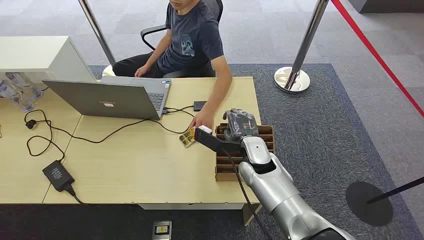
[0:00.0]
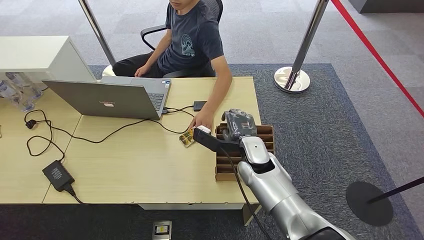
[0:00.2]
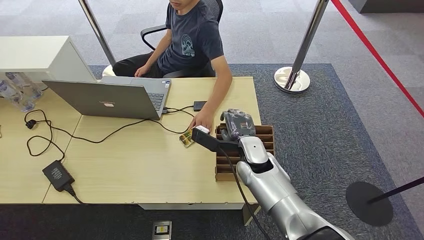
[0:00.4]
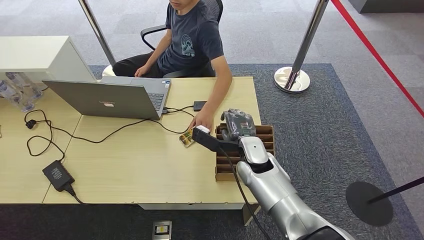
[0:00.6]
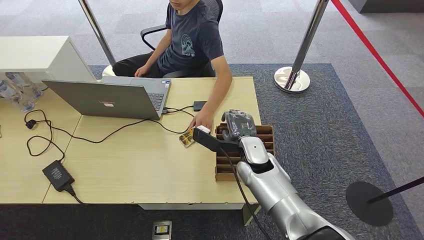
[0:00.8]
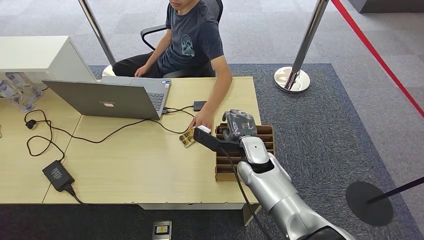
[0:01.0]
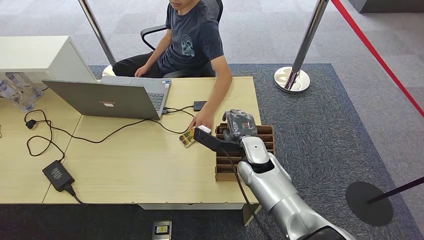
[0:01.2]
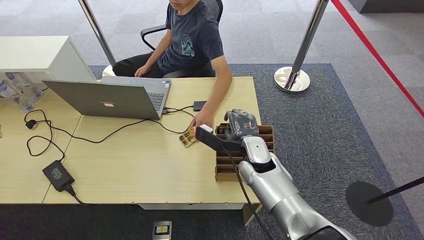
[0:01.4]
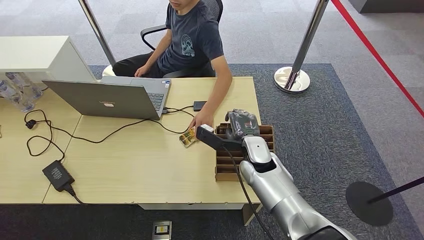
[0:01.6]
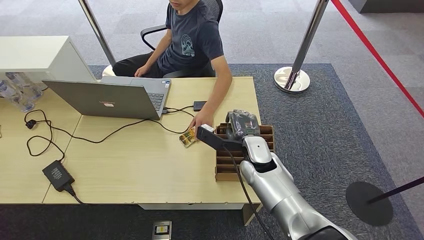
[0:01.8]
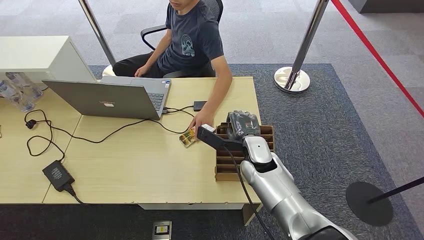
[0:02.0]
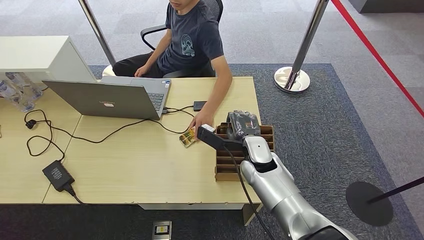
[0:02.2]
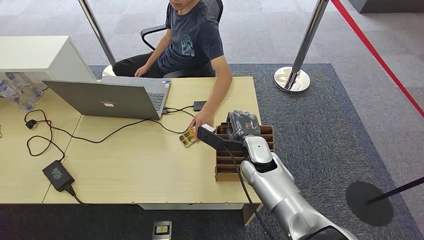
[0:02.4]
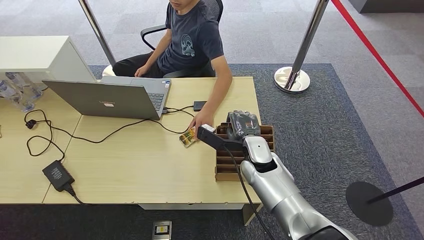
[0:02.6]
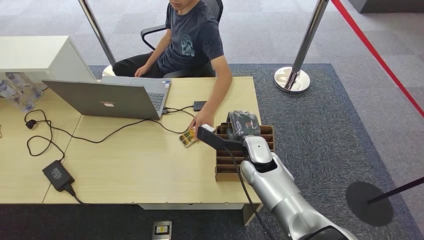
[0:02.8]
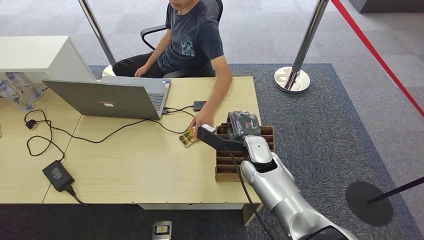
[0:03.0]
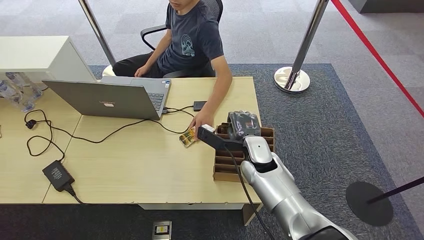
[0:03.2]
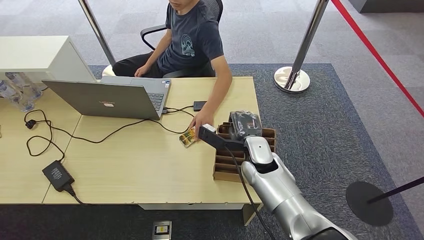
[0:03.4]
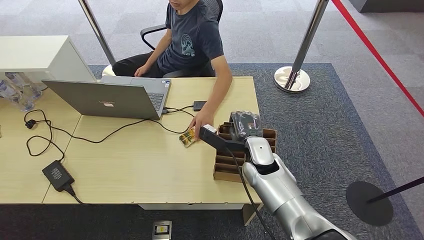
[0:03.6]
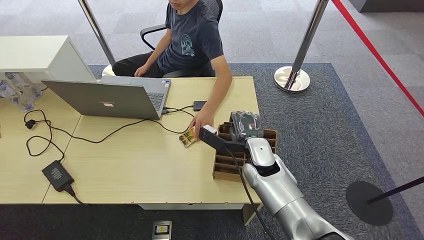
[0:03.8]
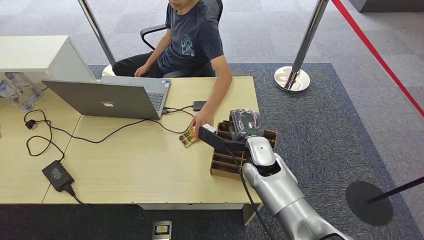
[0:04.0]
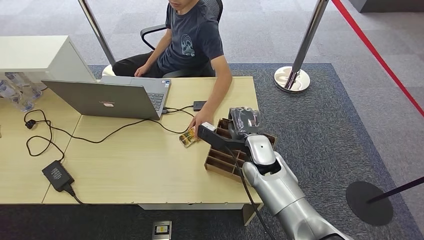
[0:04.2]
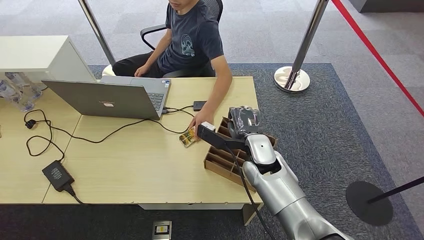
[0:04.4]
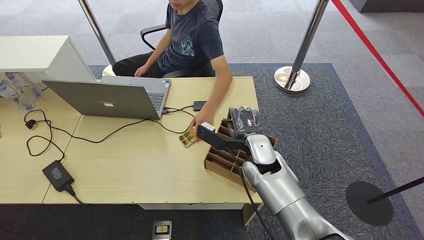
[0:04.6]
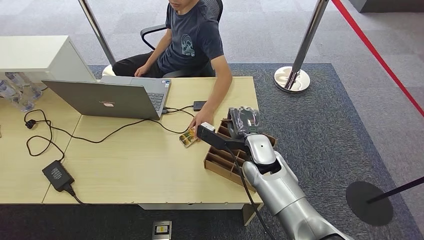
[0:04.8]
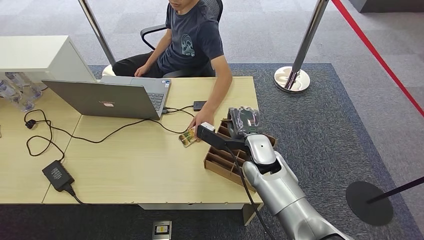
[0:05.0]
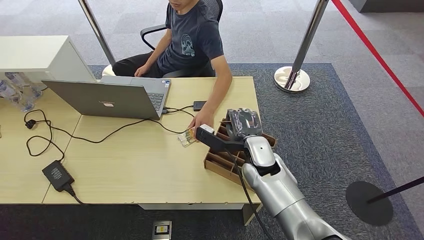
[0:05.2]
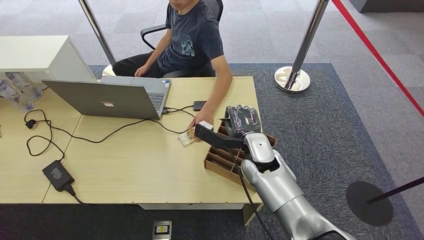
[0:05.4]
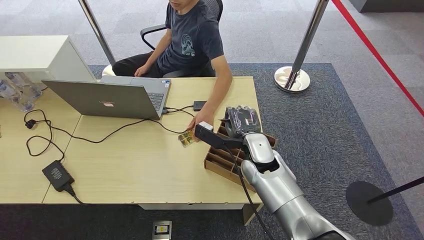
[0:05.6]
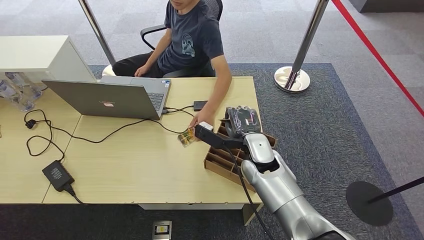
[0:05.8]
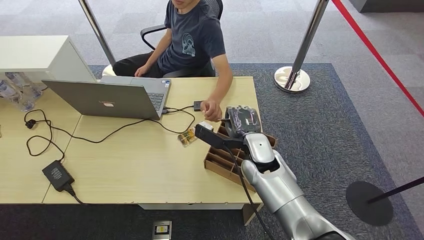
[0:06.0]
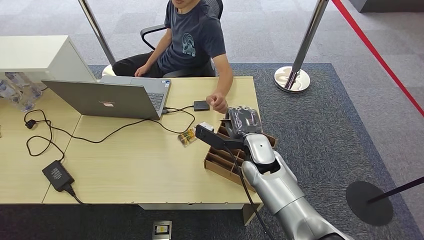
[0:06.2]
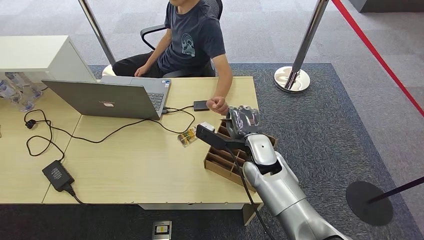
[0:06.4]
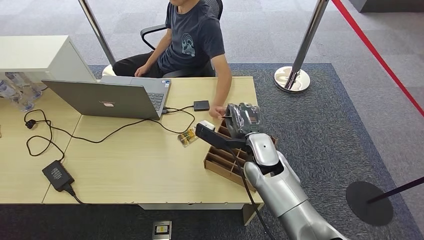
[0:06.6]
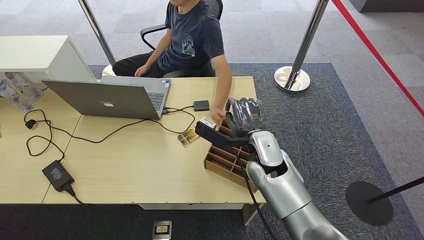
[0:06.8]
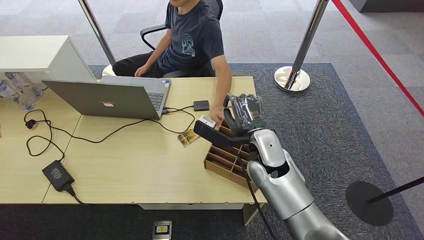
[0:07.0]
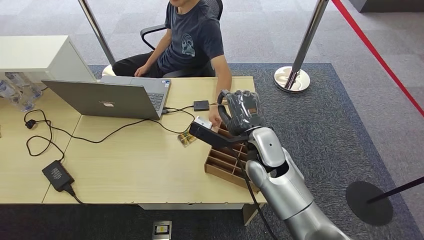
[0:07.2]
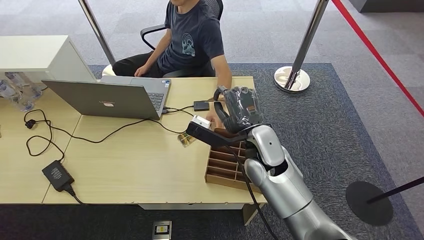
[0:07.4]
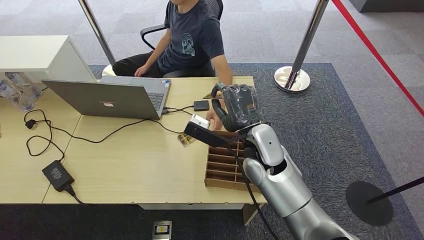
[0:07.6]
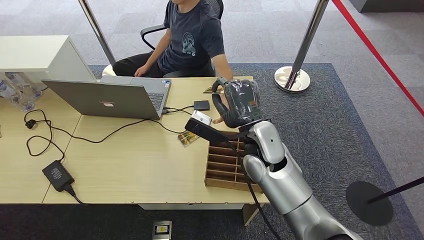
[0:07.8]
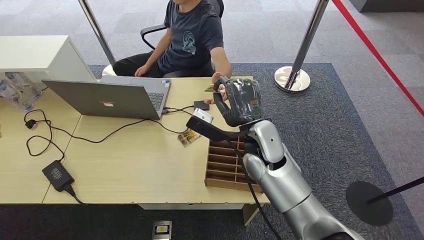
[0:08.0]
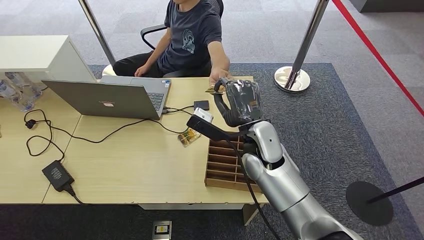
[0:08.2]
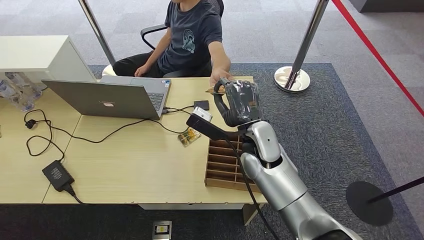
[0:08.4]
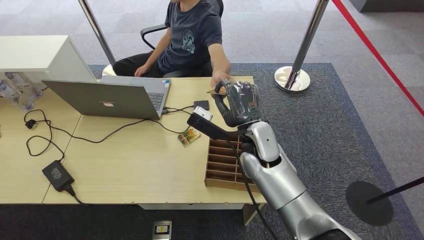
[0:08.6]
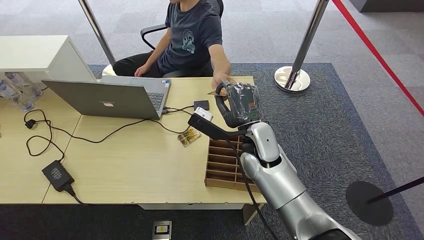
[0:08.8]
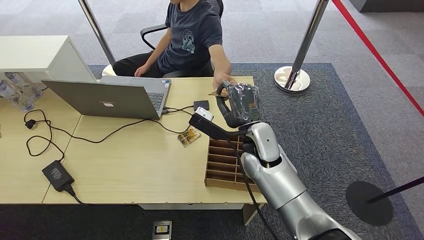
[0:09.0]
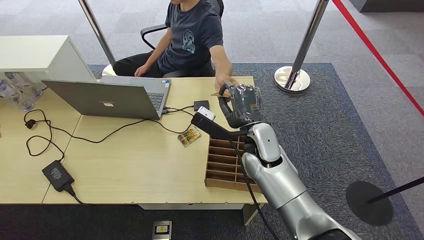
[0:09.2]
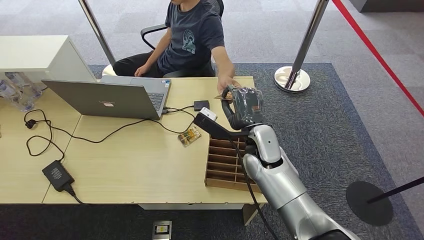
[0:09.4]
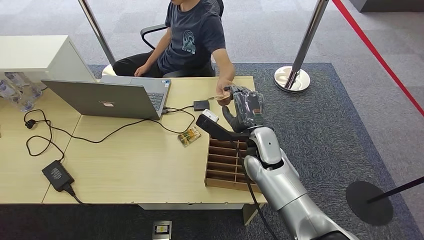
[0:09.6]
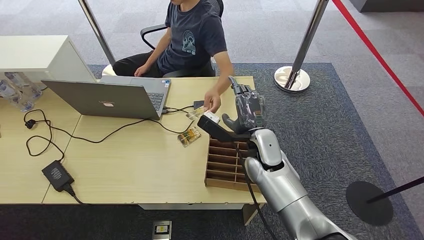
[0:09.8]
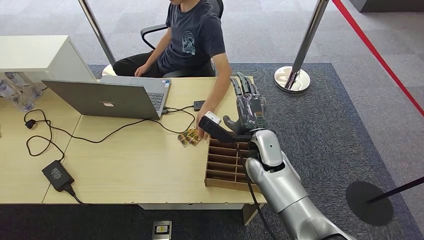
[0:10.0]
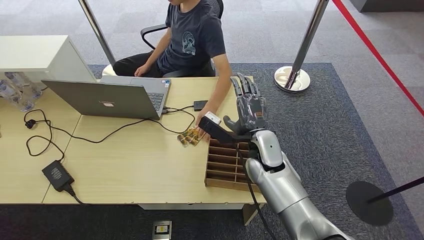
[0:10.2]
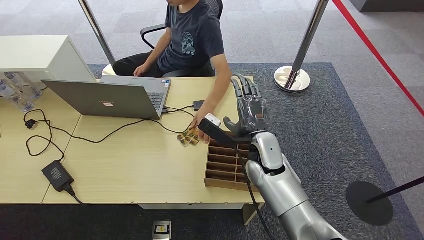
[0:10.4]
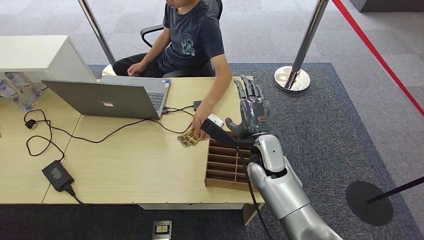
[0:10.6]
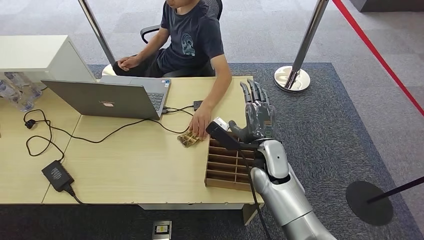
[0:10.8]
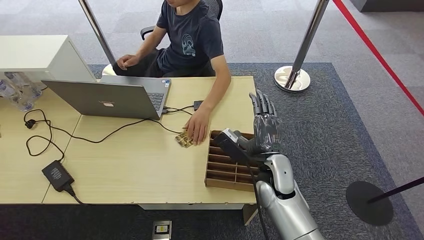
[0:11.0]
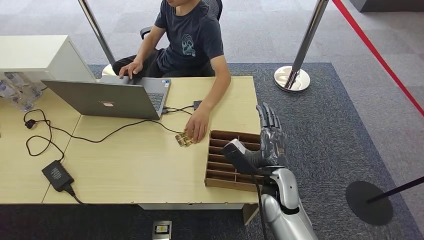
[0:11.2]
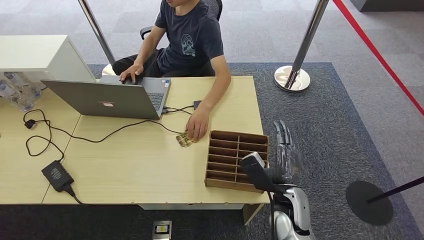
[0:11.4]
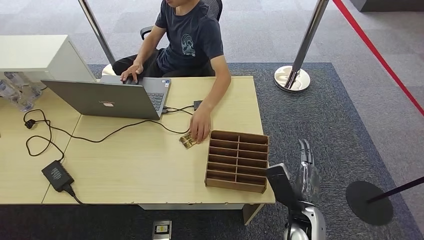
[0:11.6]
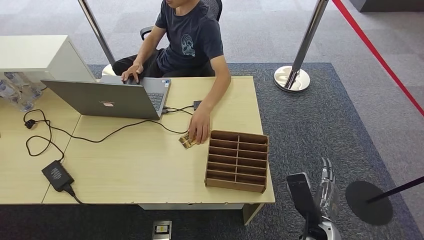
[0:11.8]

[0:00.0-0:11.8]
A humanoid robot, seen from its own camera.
Task of the whole recording: Pick up the card and hand it over to the target person.
Step, 0:00.0 to 0:06.4: Pick up the key card from the card box.
Step, 0:06.6 to 0:11.8: Hand the key card to the target.
0:01.4 to 0:03.0: The two hands keep their place.
0:03.0 to 0:06.0: There are only small adjustments of the hands.
0:06.0 to 0:07.4: The right hand shifts roughly 5 cm upward.
0:07.4 to 0:08.8: The hands make only small movements.
0:08.8 to 0:10.4: There are only small adjustments of the hands.
0:10.4 to 0:11.8: The right hand moves backward, downward and to the right, approximately 30 cm.

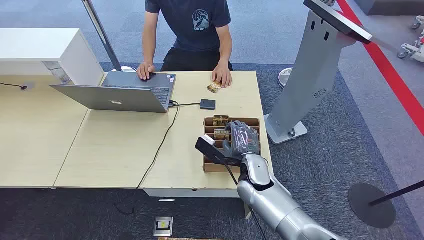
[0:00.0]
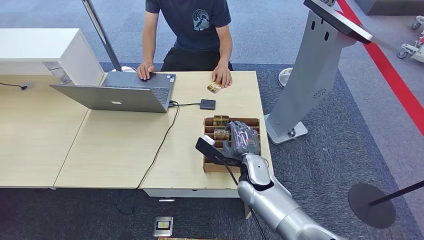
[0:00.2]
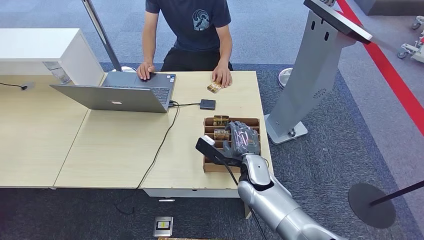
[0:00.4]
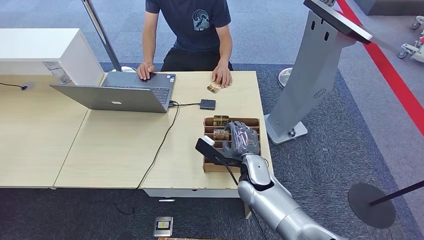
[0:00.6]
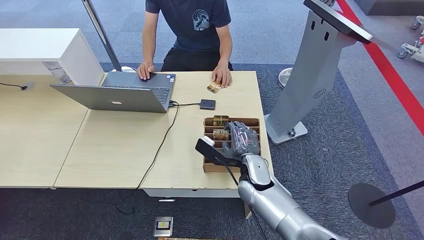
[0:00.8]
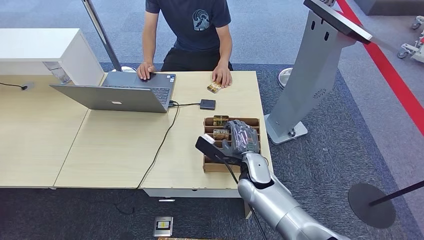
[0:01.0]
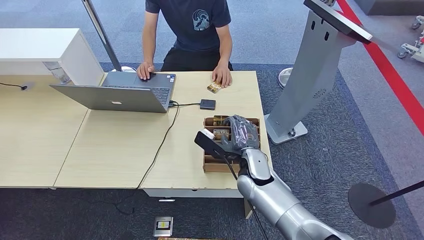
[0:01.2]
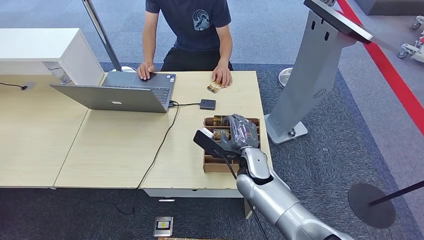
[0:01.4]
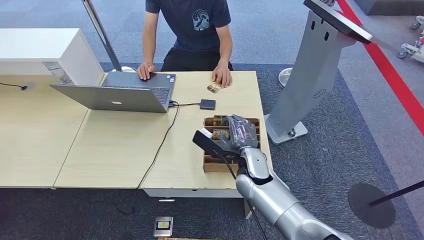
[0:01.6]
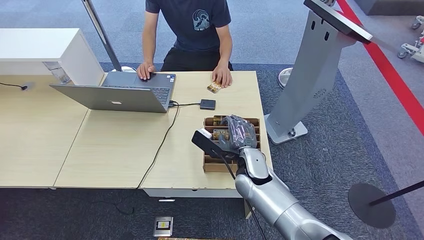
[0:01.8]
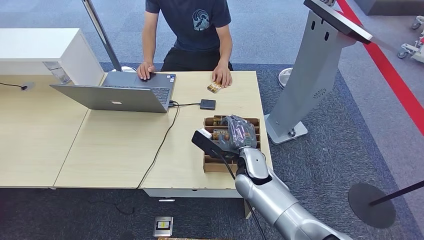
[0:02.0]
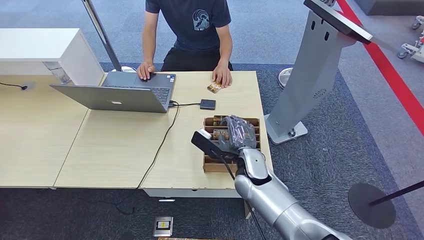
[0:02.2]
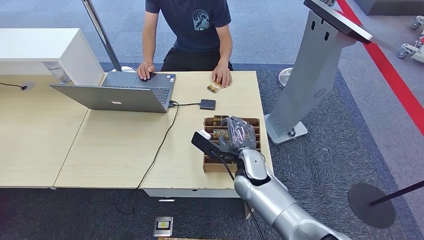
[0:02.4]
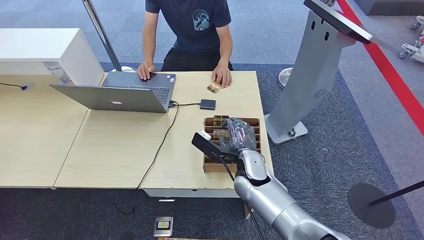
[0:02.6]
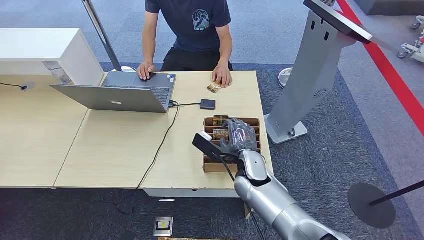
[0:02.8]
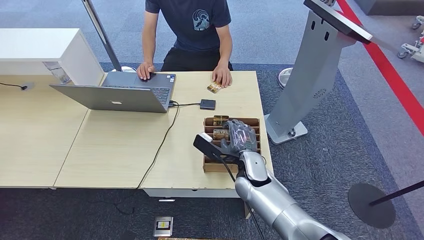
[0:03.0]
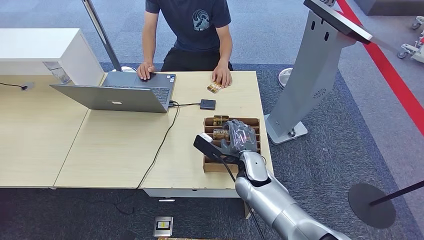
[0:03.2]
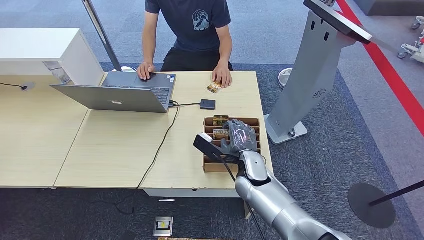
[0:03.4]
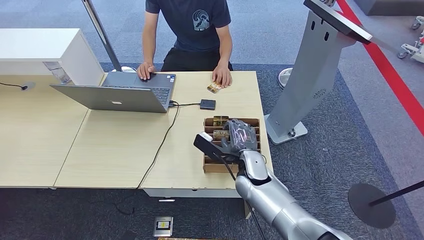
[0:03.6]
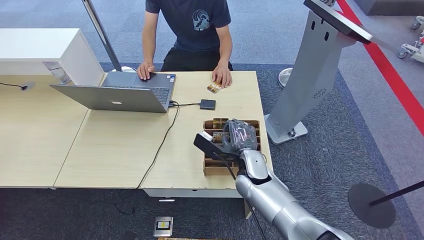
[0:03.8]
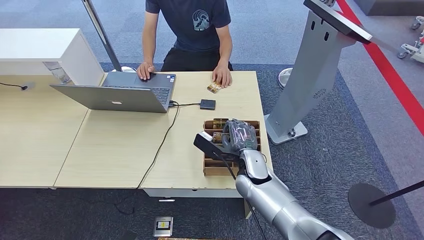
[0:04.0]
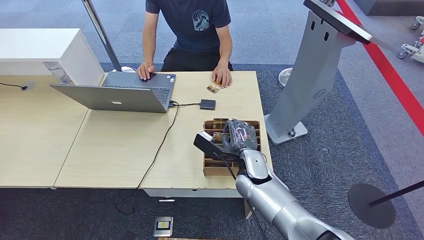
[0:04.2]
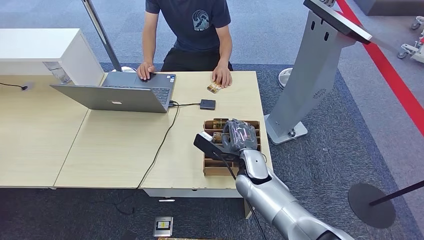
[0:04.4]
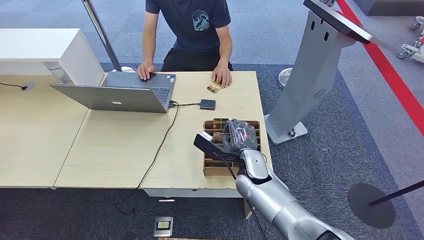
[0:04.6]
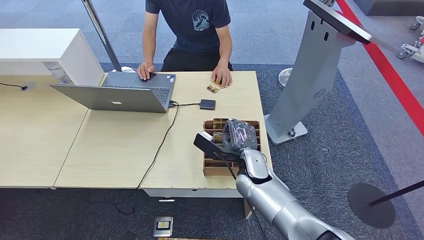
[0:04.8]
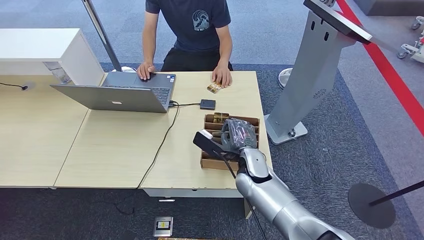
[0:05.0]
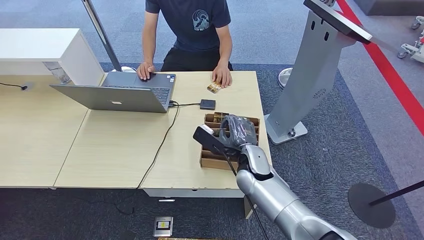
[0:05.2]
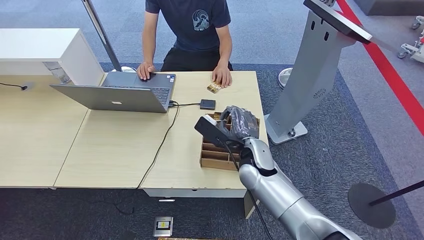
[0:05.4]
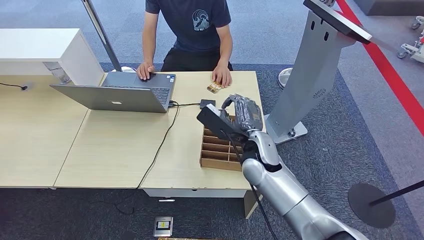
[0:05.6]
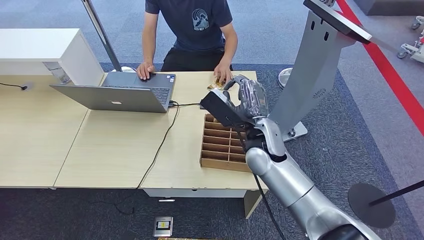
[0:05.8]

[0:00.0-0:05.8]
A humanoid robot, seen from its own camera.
Task of the whole recording: Pick up the card and hand it over to the target person.
Step, 0:00.0 to 0:05.8: Pick up the key card from the card box.
0:01.4 to 0:02.8: The hands stay close to where they were, moving slightly.
0:02.8 to 0:04.4: The two hands keep their place.
0:04.4 to 0:05.8: The right hand goes some 15 cm upward and forward.
